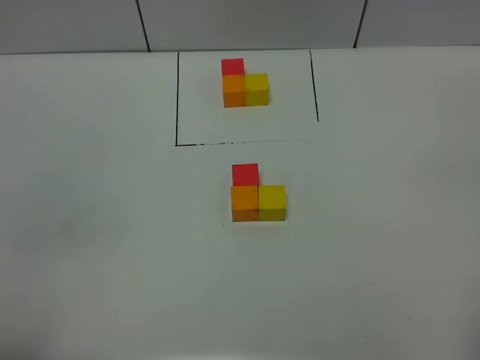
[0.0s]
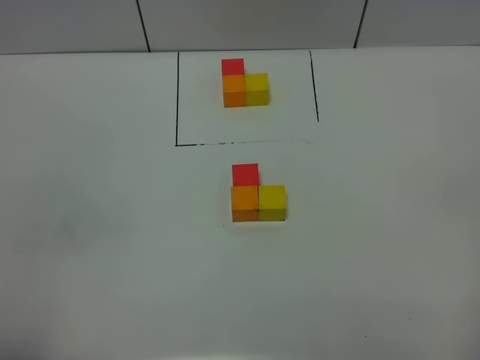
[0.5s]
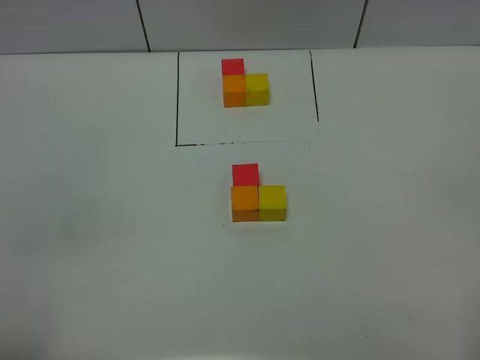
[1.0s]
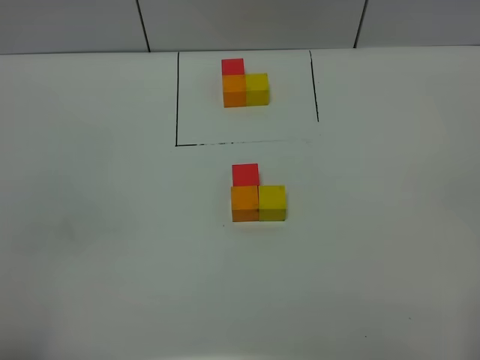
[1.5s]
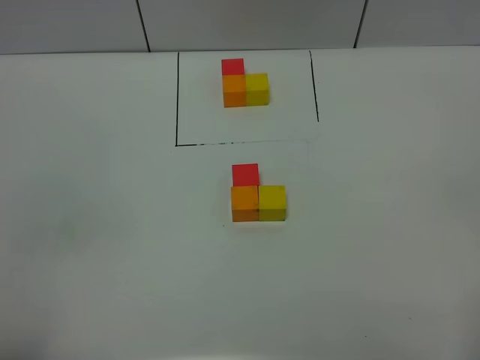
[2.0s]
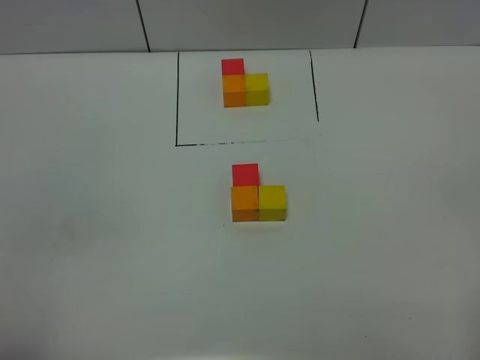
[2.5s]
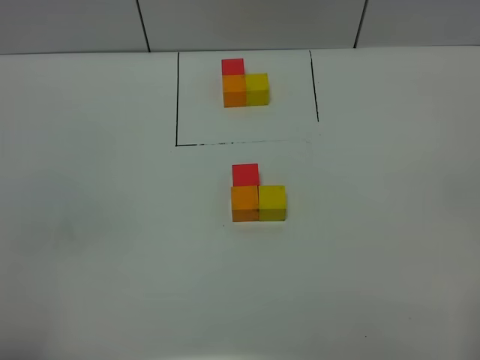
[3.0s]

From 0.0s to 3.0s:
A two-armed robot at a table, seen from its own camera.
Task of the whole recording: According to the building block template in front, assemble the scattered blocks together.
From 1.5s to 3.0s: The two grippers keep their place.
